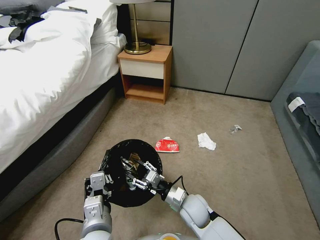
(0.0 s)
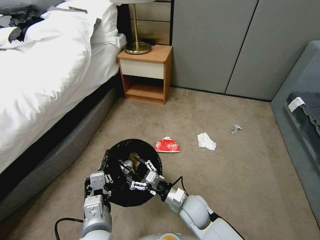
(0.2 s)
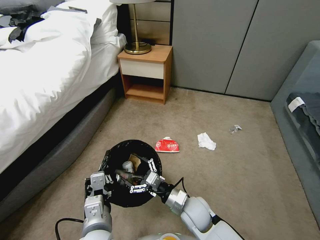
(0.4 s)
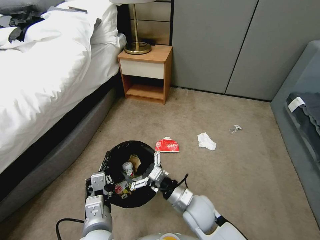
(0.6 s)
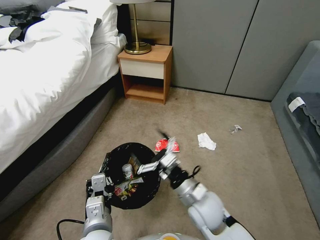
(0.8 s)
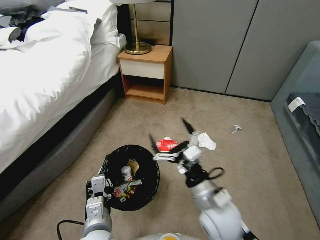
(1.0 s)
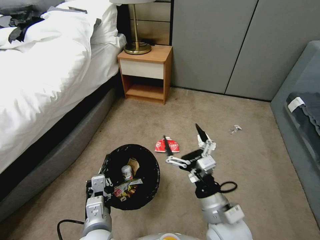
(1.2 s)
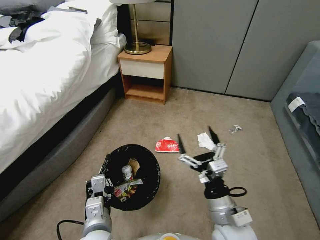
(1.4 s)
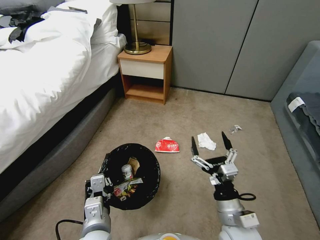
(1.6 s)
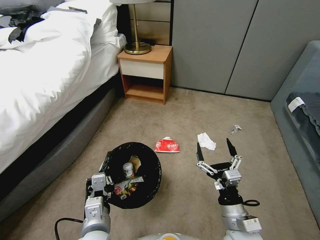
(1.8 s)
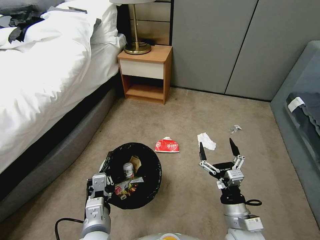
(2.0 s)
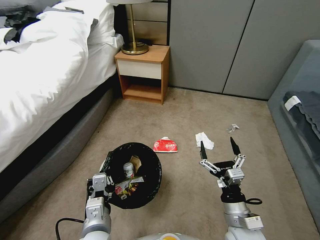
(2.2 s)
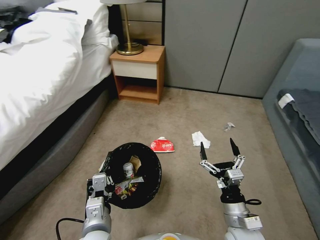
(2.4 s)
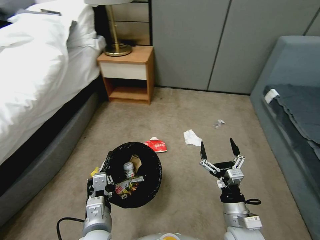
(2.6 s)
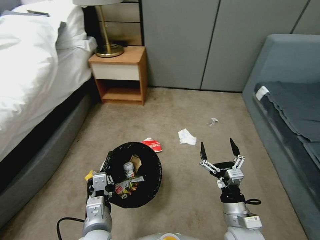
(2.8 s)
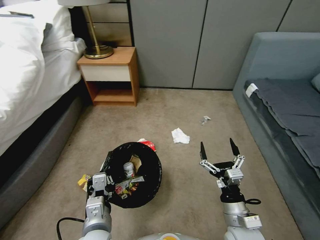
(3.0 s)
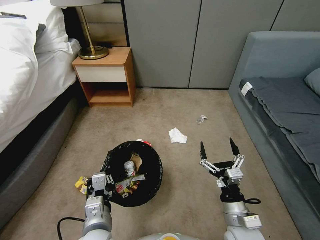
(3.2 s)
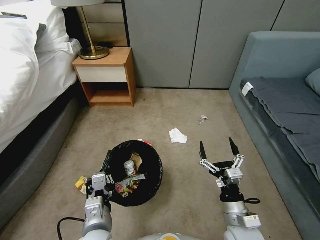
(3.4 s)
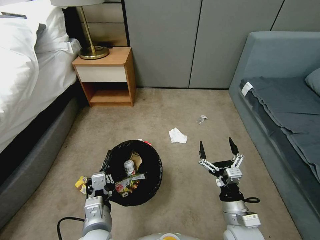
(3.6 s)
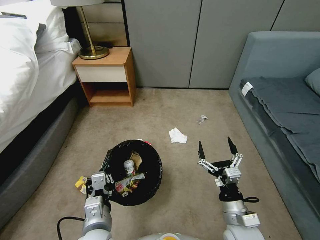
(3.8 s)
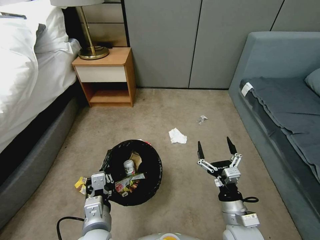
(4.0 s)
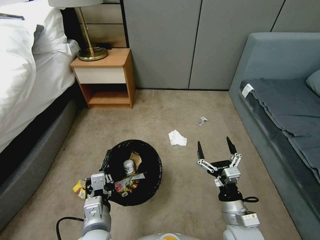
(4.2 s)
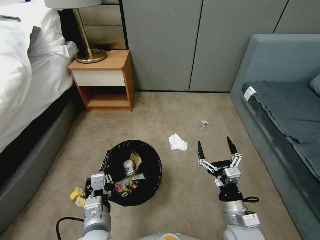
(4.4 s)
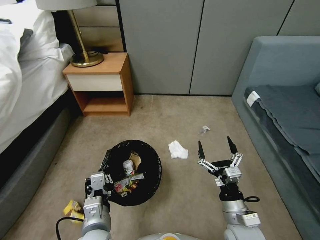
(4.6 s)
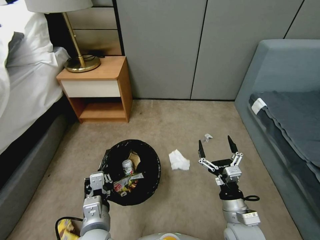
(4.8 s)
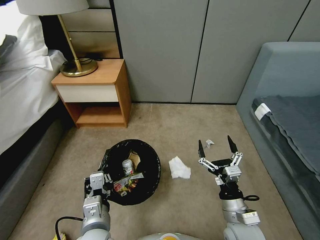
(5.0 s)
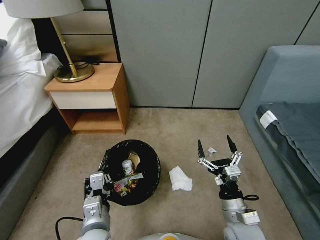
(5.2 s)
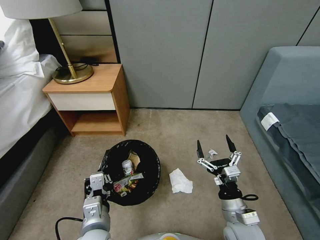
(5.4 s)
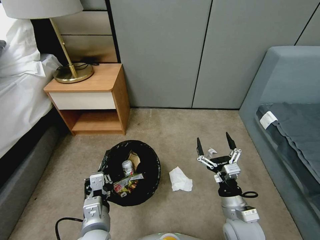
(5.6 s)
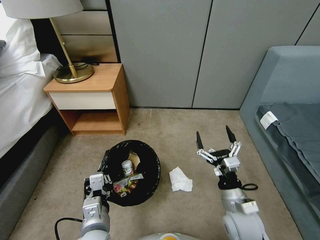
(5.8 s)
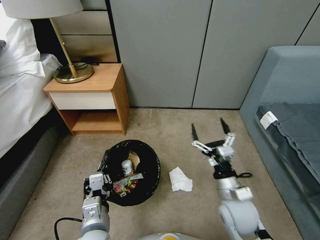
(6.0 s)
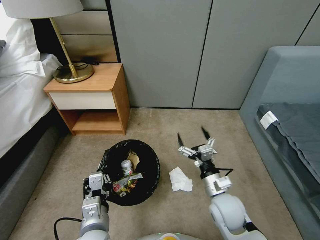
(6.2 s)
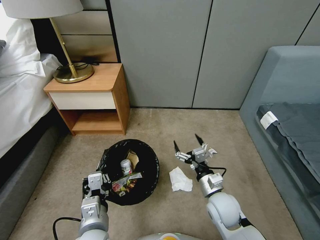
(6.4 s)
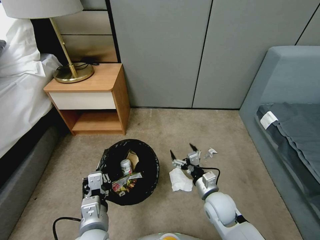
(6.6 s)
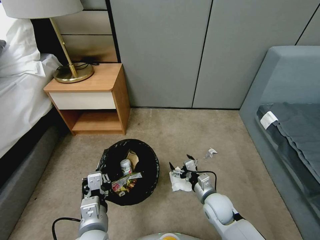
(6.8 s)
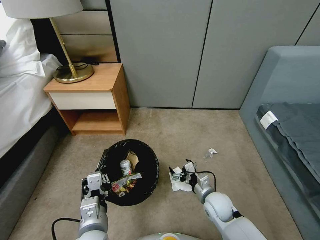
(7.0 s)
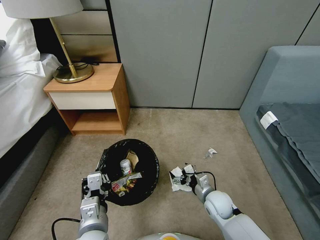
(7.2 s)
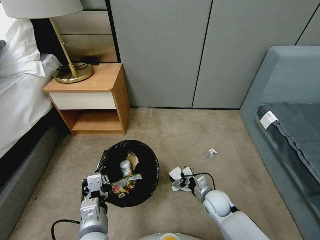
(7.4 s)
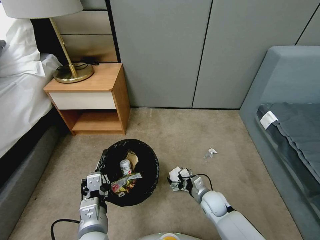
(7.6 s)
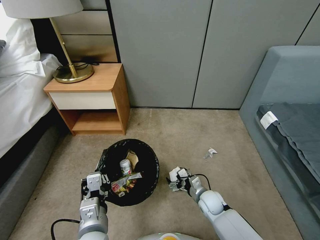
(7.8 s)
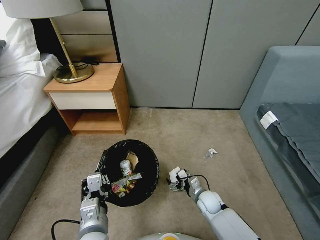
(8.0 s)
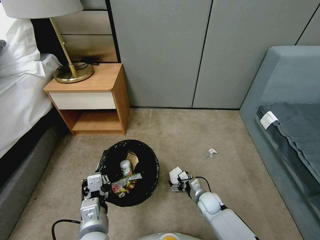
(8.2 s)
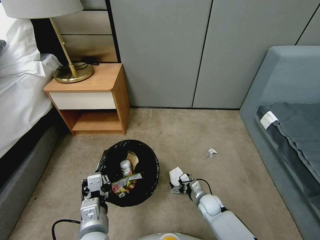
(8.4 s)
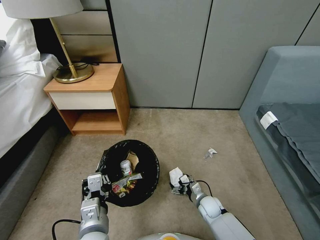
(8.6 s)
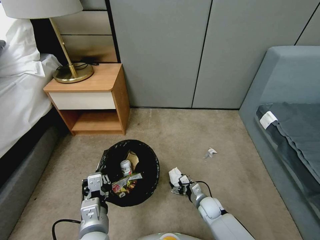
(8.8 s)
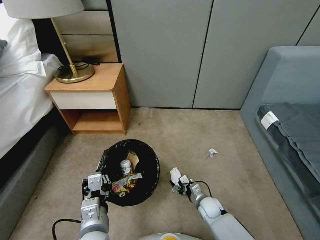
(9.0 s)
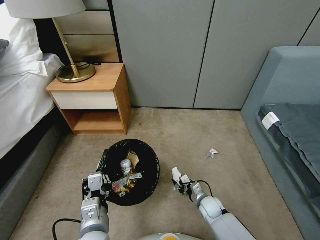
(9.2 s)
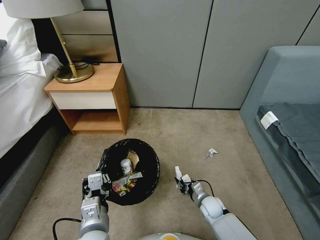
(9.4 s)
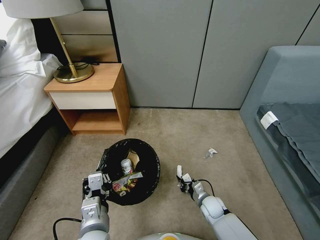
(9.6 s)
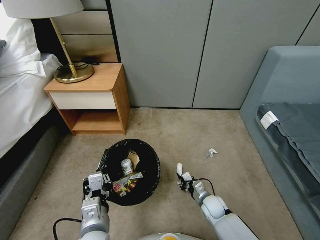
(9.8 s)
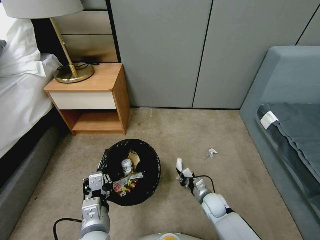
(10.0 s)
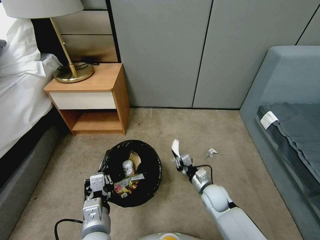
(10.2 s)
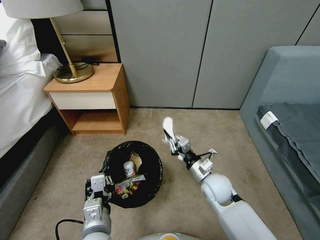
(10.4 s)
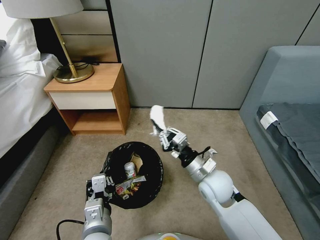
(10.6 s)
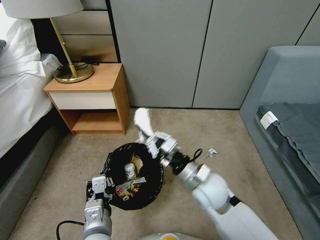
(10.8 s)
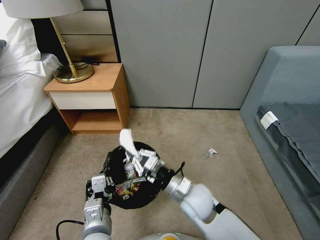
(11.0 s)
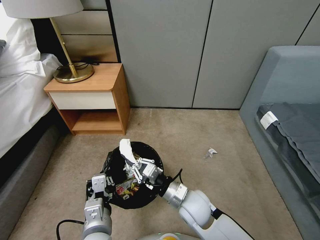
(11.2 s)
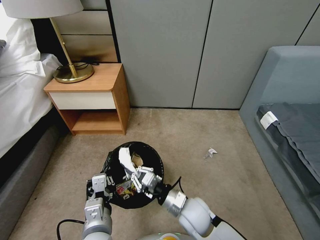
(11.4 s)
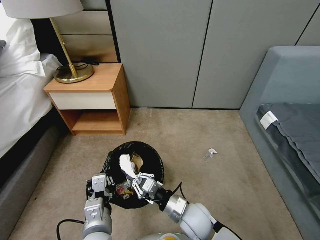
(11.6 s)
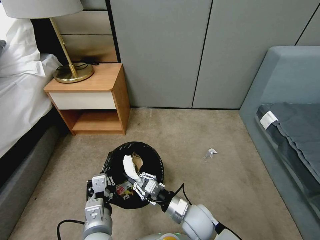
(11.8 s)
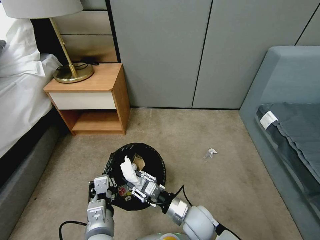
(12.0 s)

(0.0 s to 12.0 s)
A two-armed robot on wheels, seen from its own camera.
Task of the whole recording: Pick up the trash bin, then pick up the garbage from the floor and place it into the trash bin.
0.0 s - 1.6 s: The right gripper travels upward, backward and to the right by some 15 cm, and opens up.
1.6 s - 3.0 s: The right gripper moves roughly 5 cm.
3.0 s - 4.4 s: Both grippers stay about where they are.
4.4 s - 6.0 s: The right gripper moves forward, roughly 5 cm.
6.0 s - 7.6 s: The right gripper heads downward, covering roughly 15 cm.
7.6 s - 9.0 s: The right gripper shifts some 5 cm downward.
9.0 s - 10.4 s: The right gripper goes some 20 cm upward, and closes up.
10.4 s - 12.0 s: The right gripper travels backward, to the left and downward by some 15 cm, and opens up.

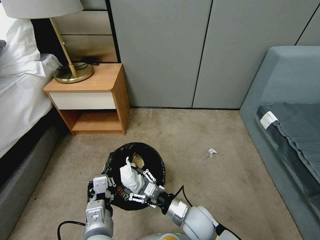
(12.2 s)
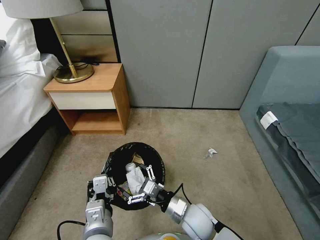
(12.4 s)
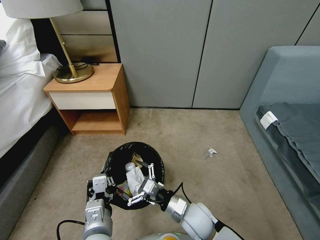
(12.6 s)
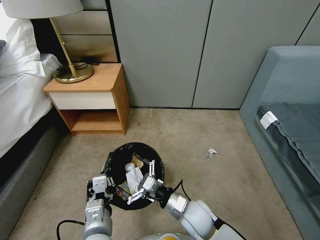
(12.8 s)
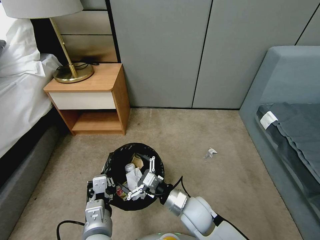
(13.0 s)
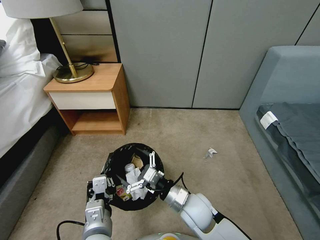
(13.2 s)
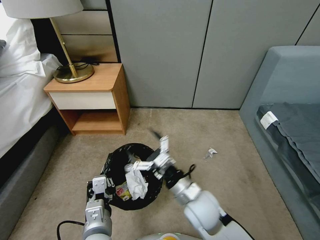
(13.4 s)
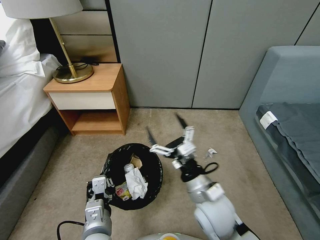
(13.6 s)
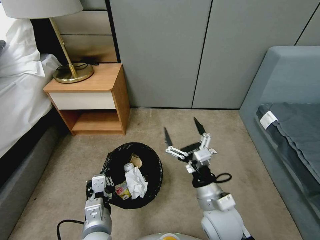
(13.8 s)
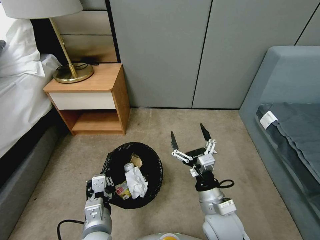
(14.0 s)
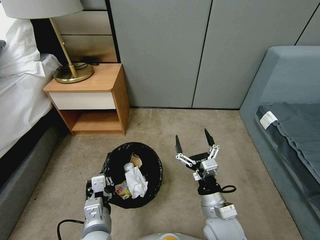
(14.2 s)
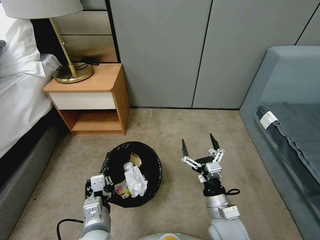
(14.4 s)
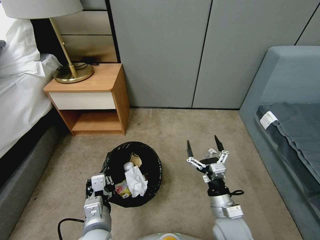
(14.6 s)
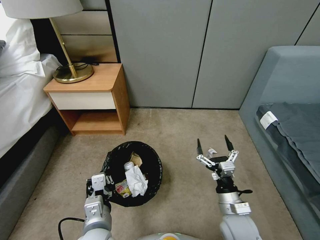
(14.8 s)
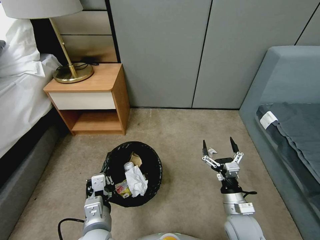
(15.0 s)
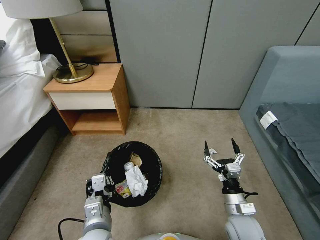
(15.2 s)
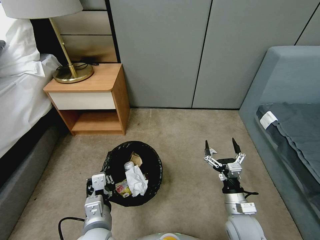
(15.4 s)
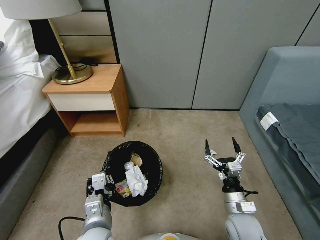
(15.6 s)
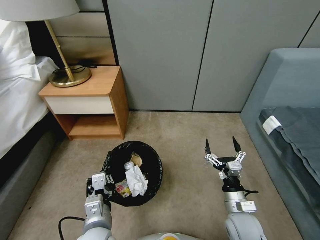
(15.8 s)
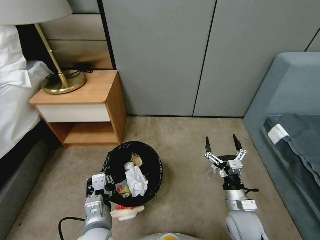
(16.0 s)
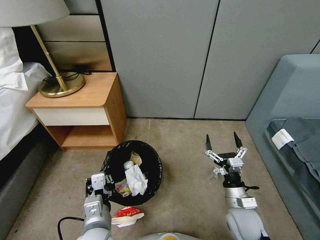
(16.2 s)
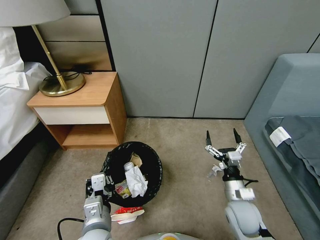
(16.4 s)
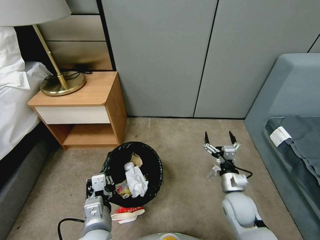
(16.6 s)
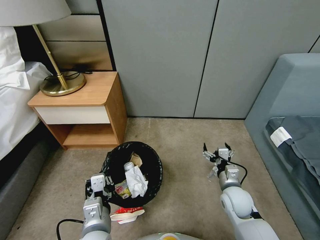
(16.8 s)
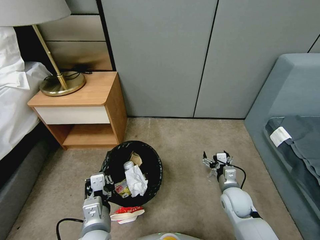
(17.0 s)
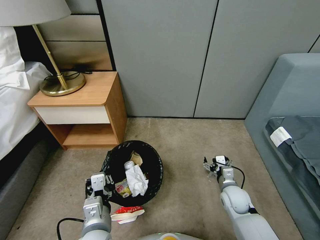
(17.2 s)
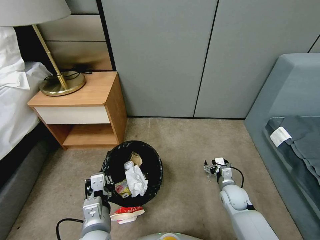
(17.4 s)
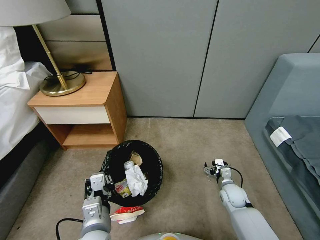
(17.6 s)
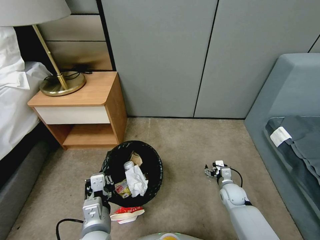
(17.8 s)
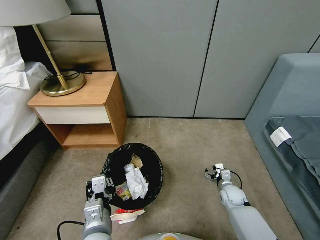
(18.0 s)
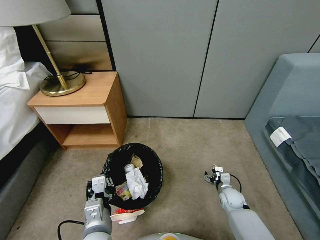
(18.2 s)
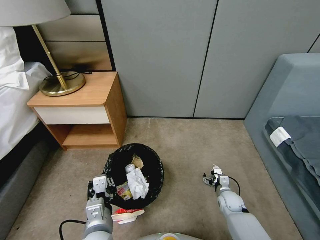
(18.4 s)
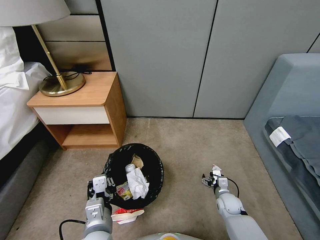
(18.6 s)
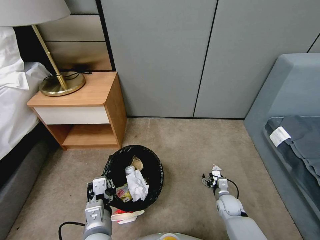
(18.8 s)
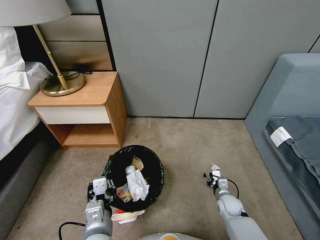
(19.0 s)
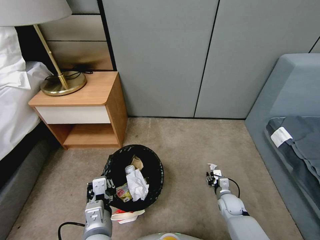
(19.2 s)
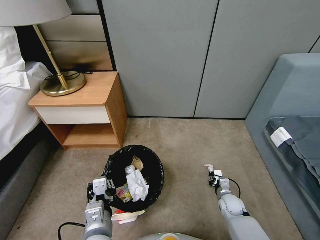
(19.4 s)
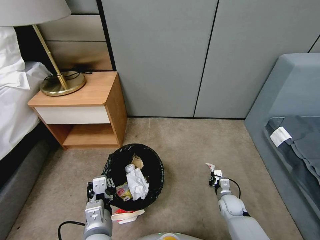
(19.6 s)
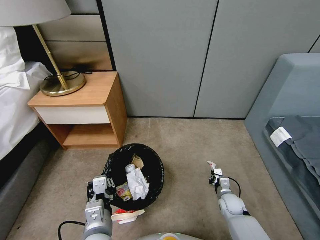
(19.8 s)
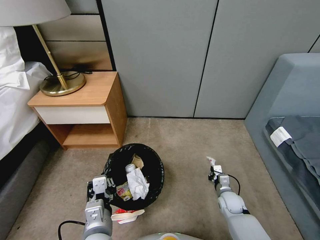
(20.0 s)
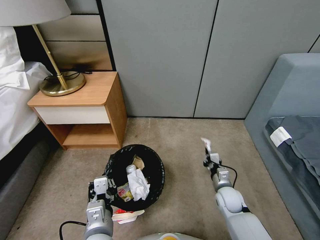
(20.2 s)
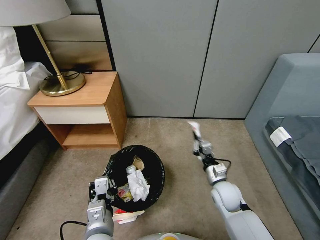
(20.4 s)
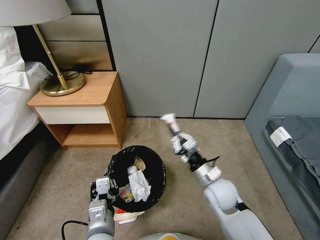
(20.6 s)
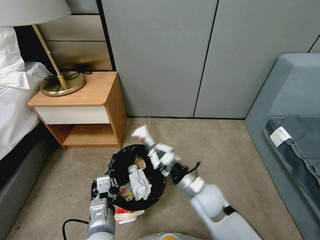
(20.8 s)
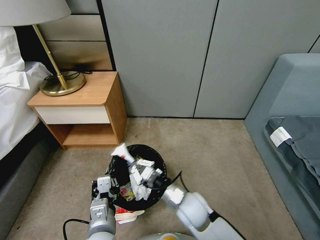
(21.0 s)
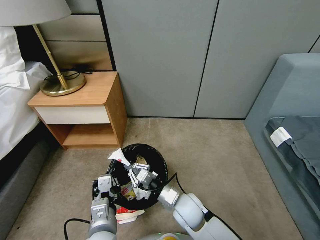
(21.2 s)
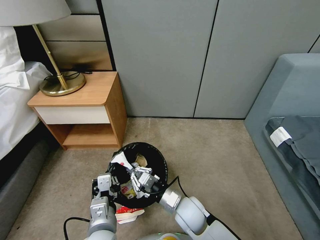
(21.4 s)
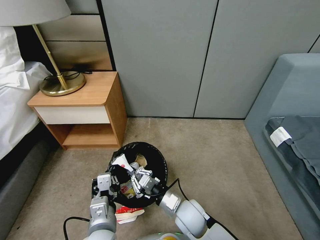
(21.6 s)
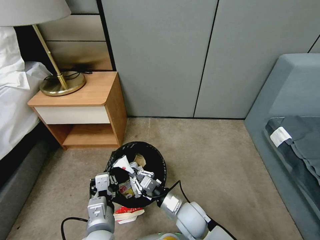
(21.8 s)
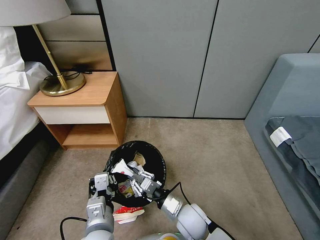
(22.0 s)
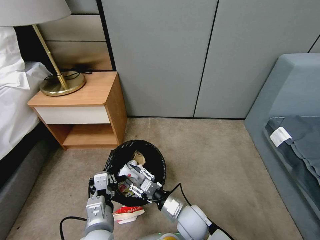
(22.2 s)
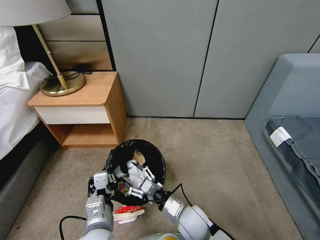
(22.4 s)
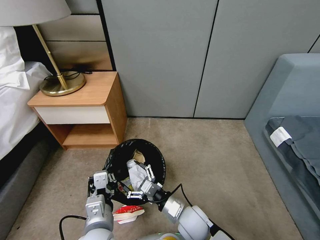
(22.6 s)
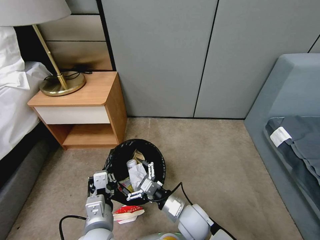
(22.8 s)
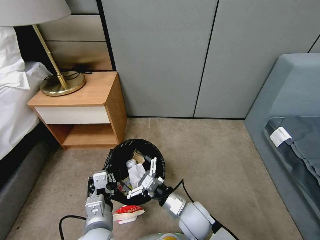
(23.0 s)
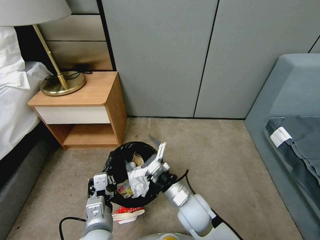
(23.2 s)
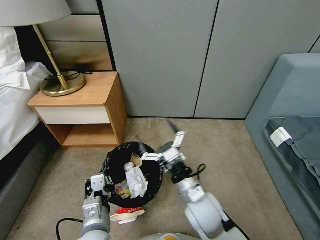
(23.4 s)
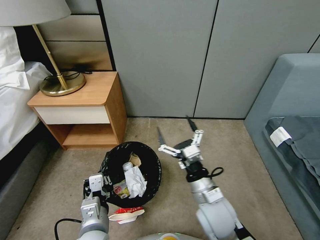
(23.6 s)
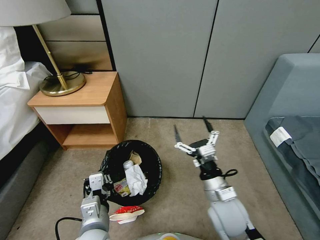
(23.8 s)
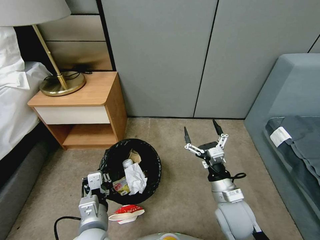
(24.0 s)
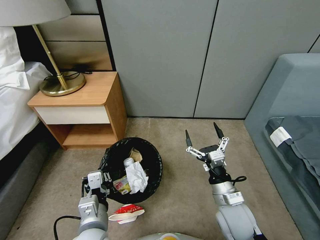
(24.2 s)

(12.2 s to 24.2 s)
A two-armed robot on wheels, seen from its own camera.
Task of the whole recording: Pick up the trash bin, then pick up the garbage from the floor and place it into the trash bin.
12.2 s - 13.8 s: The right gripper travels upward by some 10 cm.
13.8 s - 15.2 s: The right gripper heads downward and to the right, covering some 15 cm.
15.2 s - 16.6 s: The right gripper travels forward by some 5 cm.
16.6 s - 18.2 s: The right gripper heads downward and forward, covering approximately 15 cm.
18.2 s - 19.8 s: The right gripper closes its fingers.
19.8 s - 21.2 s: The right gripper moves to the left and upward, some 25 cm.
21.2 s - 22.6 s: The right gripper opens its fingers.
22.6 s - 24.2 s: The right gripper shifts approximately 15 cm to the right and upward.
